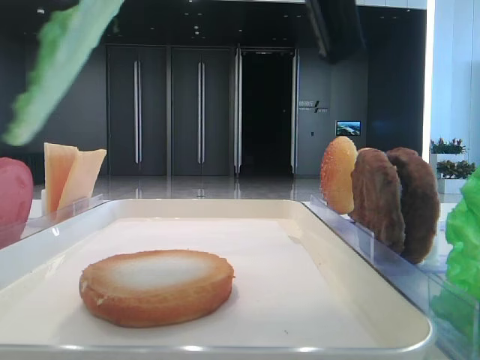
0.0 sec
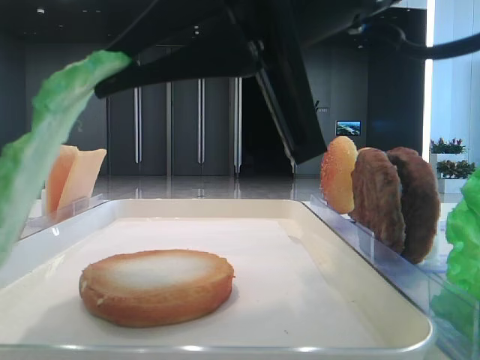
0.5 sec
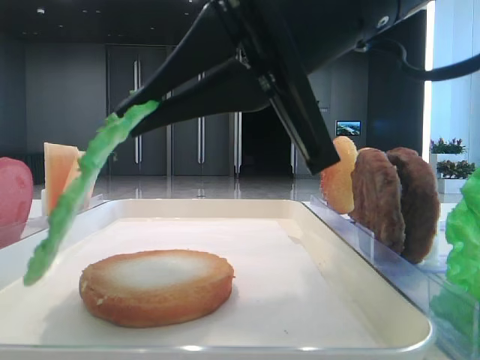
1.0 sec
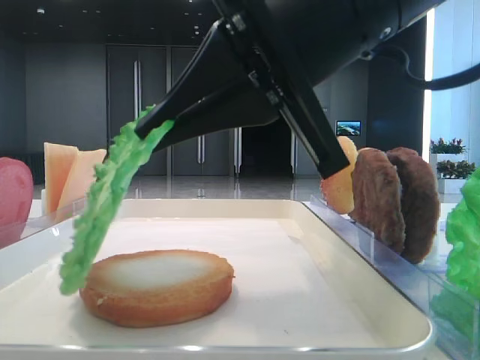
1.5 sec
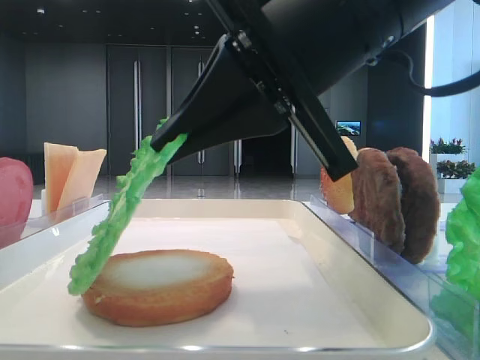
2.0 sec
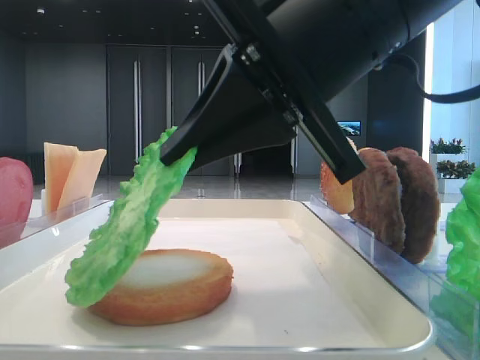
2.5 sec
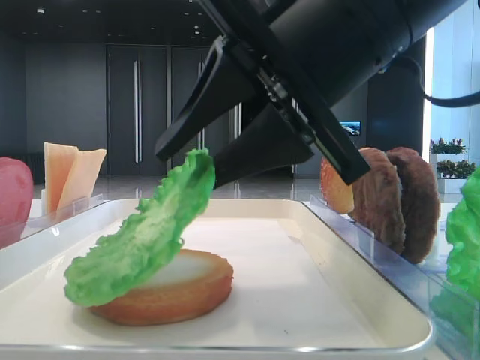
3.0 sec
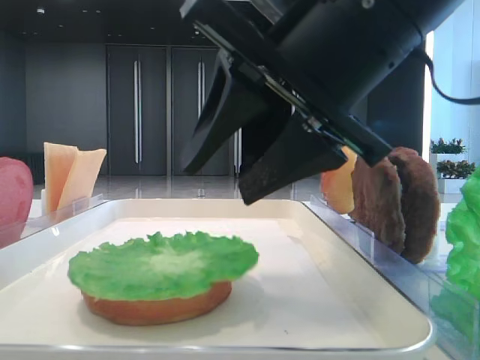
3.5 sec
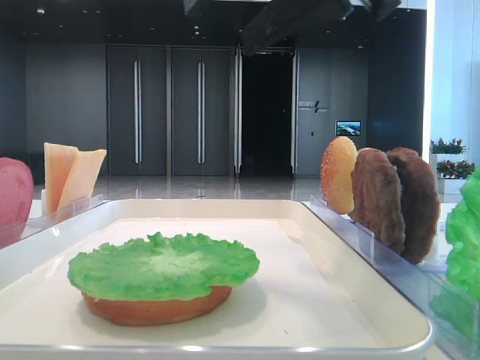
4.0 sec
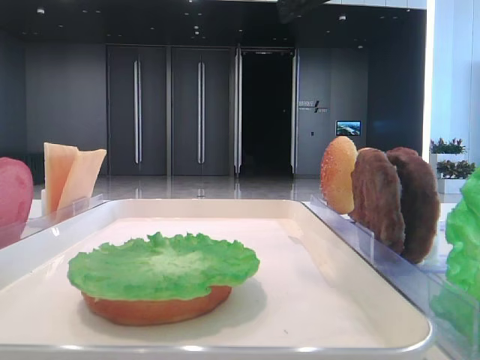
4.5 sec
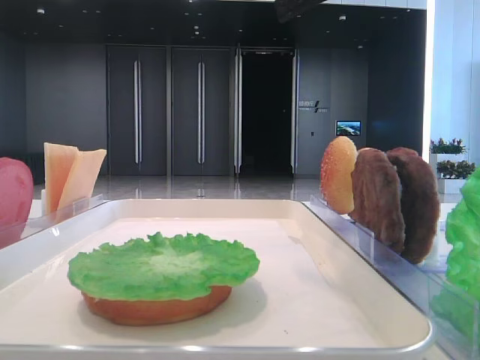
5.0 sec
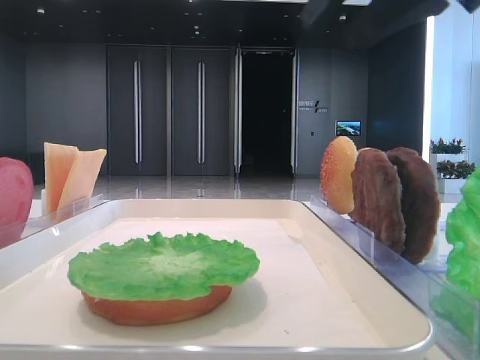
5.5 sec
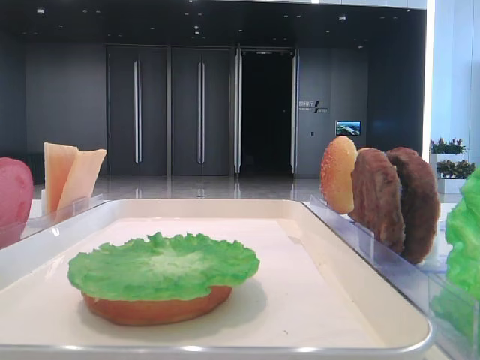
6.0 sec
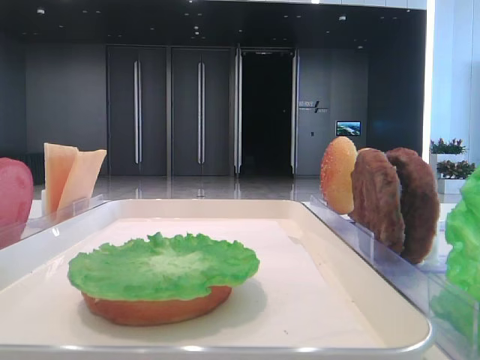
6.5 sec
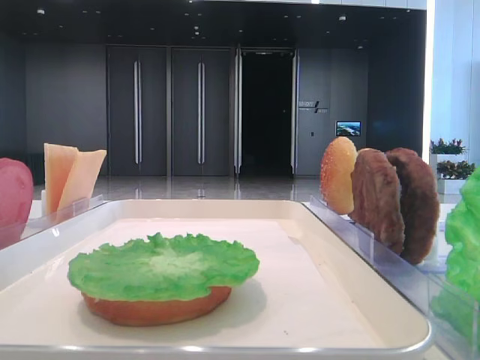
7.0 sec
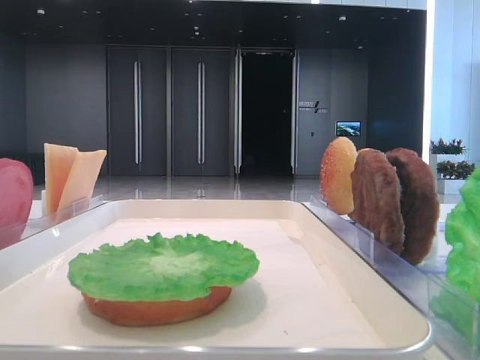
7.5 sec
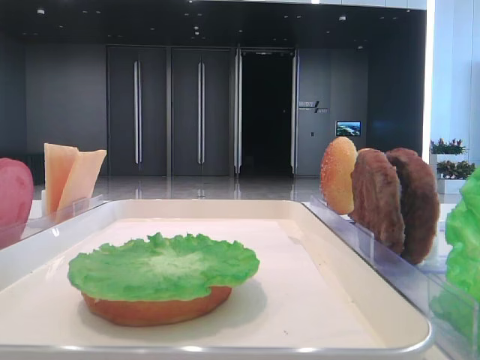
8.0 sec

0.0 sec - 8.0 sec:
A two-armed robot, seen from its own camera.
Step, 0.0 sec - 3.0 sec: Place the lettuce leaf on the bottom bread with the right hand.
0.0 sec - 2.0 sec: The right gripper travels downward by approximately 5 cm.
2.0 sec - 4.0 sec: The right gripper goes about 5 cm upward, and opens its fingers.
4.0 sec - 6.0 sec: The right gripper goes roughly 20 cm to the right.

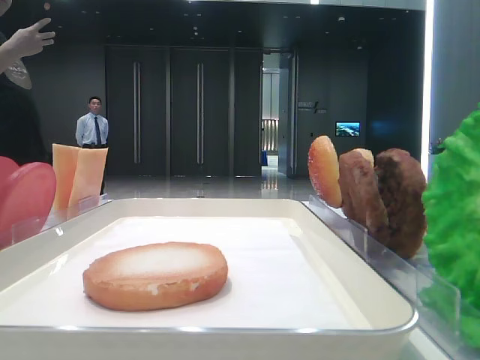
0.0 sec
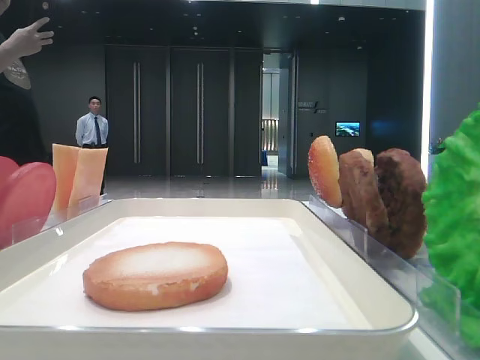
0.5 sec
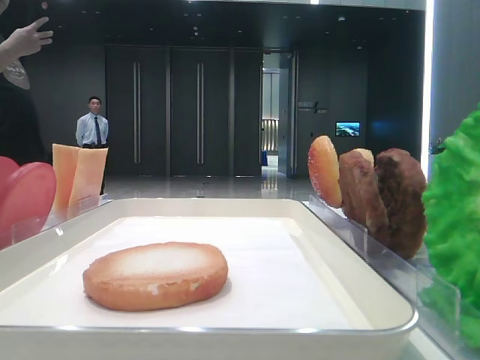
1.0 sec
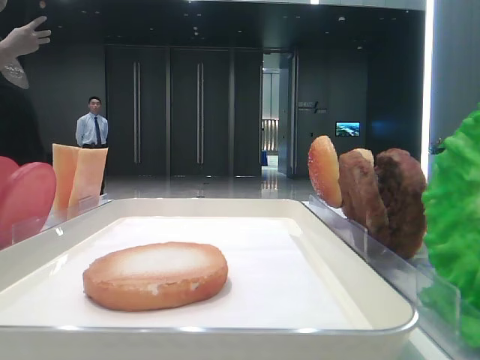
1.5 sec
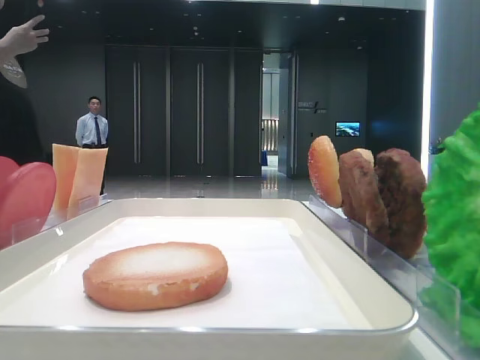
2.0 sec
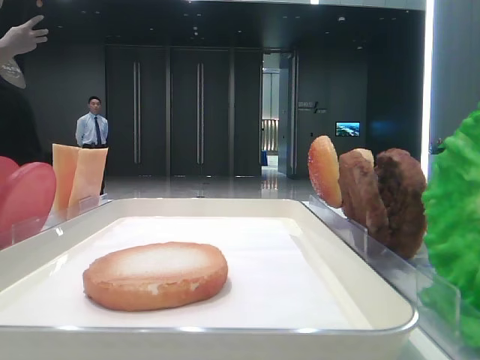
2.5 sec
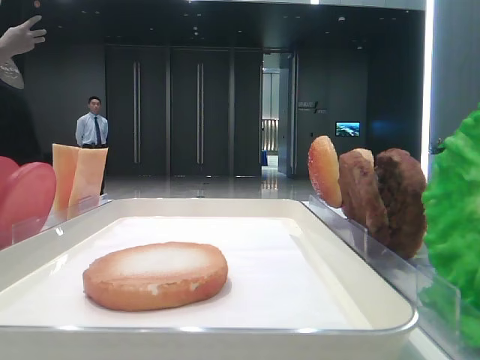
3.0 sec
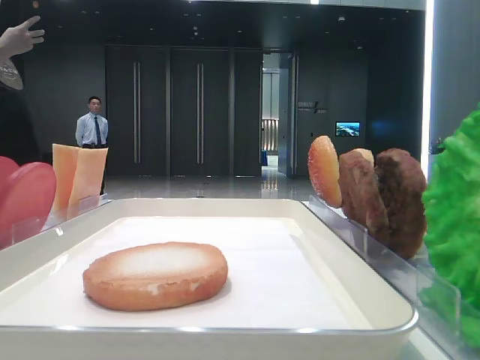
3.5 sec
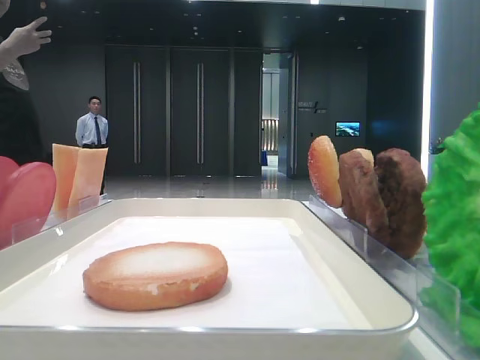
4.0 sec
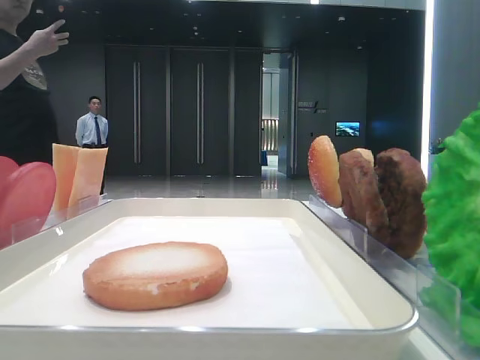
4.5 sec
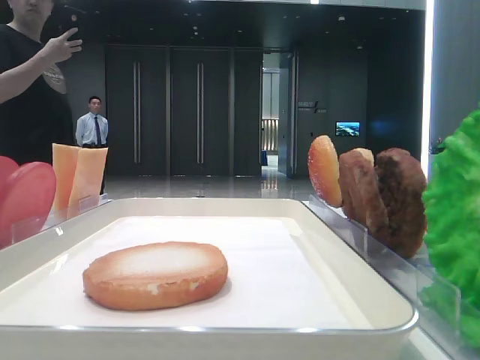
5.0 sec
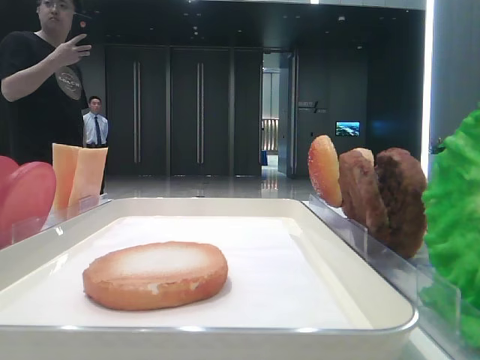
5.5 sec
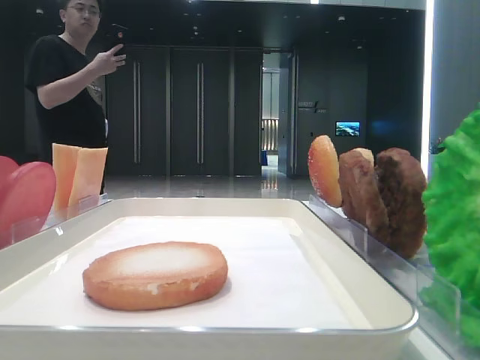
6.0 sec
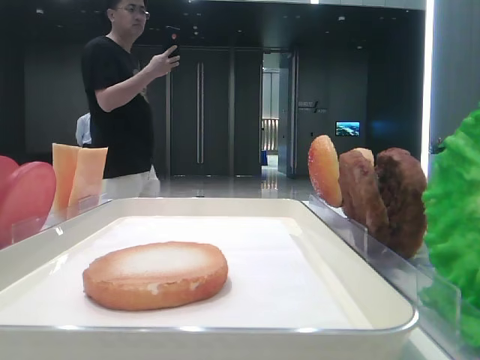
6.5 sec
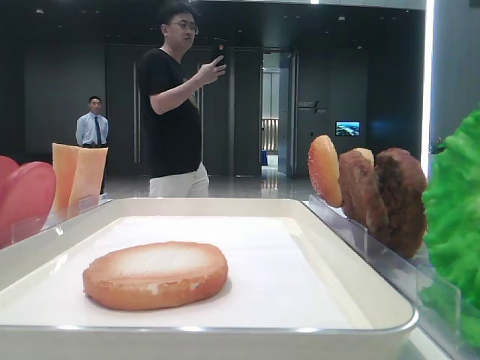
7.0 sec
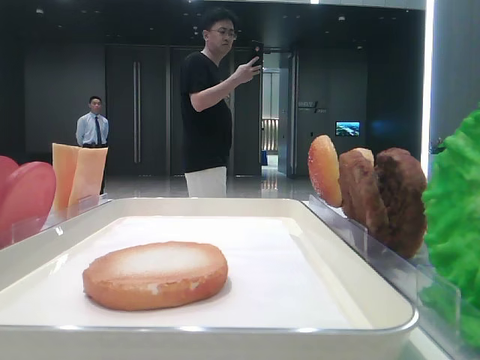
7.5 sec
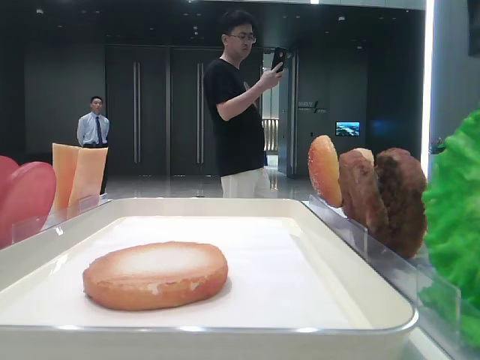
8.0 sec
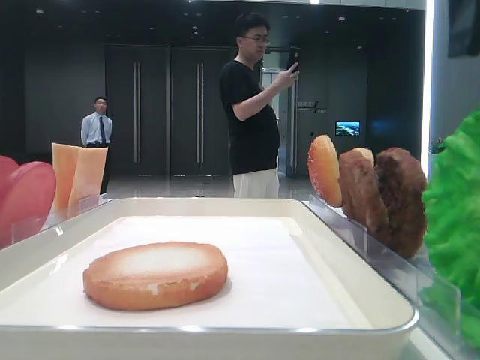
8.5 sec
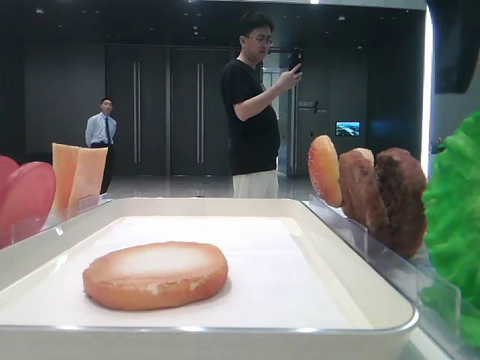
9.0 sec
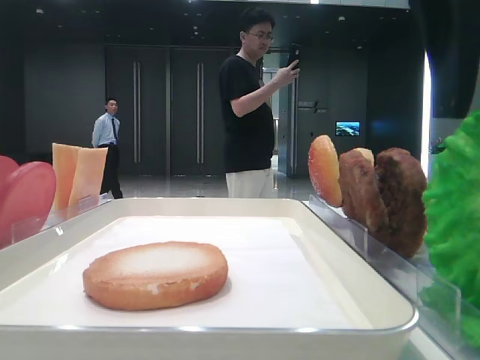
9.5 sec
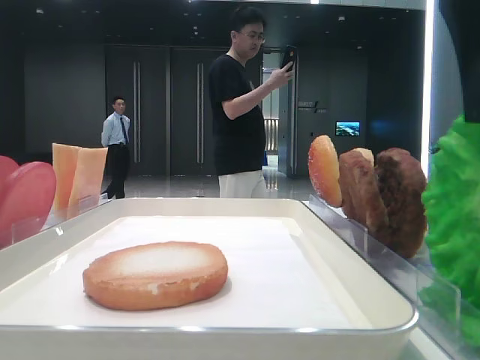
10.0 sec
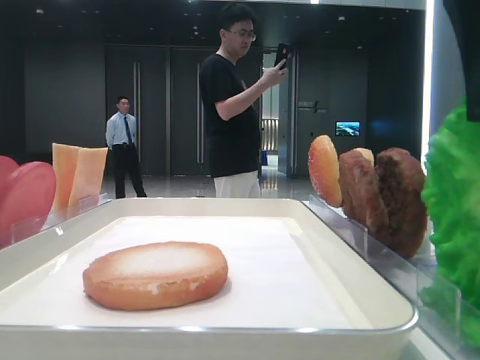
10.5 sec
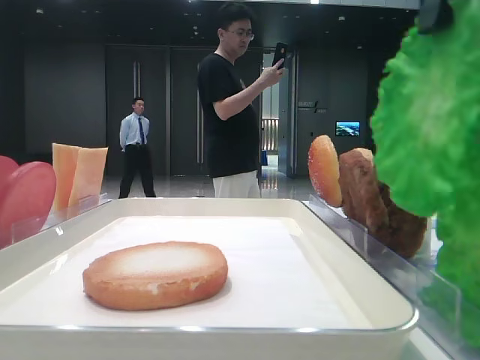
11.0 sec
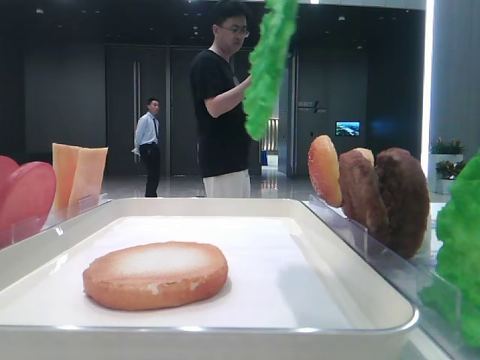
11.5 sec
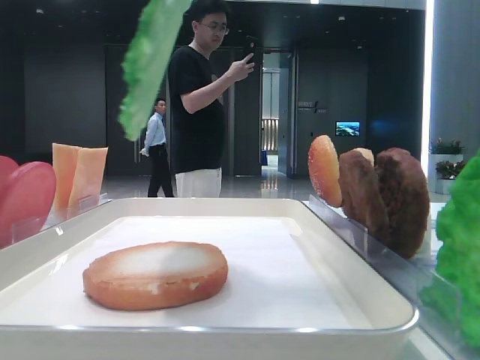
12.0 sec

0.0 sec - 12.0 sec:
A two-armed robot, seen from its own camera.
Step, 0.0 sec - 10.0 sec: Grab the lettuce leaf with the right hand.
6.0 sec - 8.0 sec: The right gripper heads to the left and downward, covering approximately 15 cm.
8.0 sec - 10.0 sec: The right gripper closes up.
10.0 sec - 12.0 sec: The right gripper heads to the left and upward, covering some 10 cm.

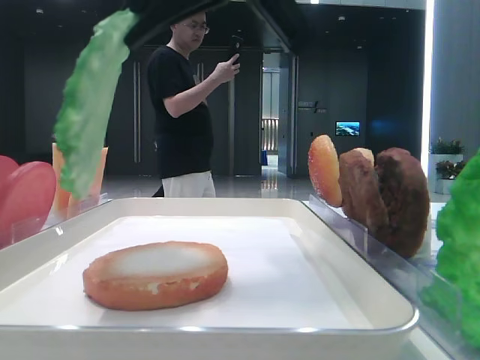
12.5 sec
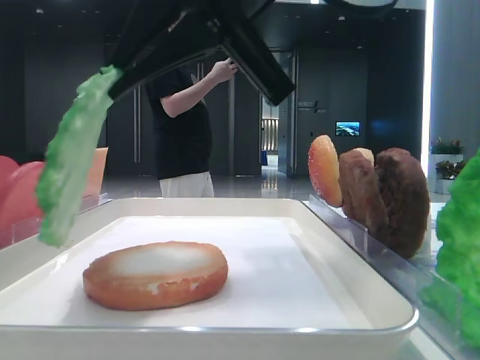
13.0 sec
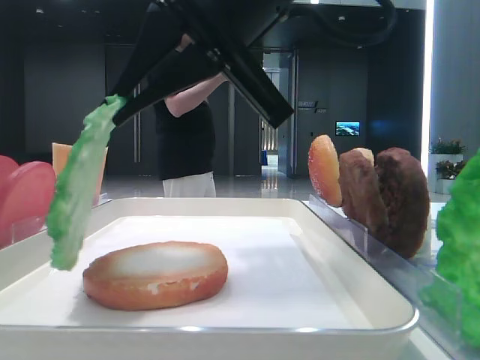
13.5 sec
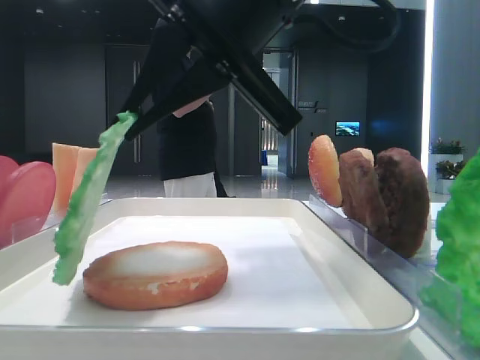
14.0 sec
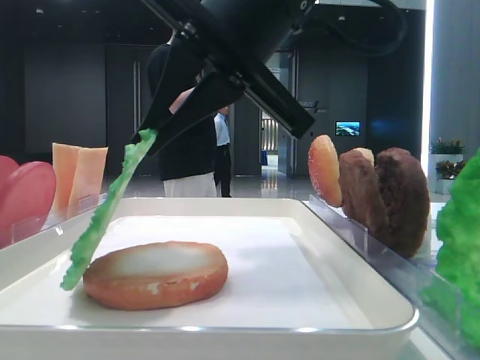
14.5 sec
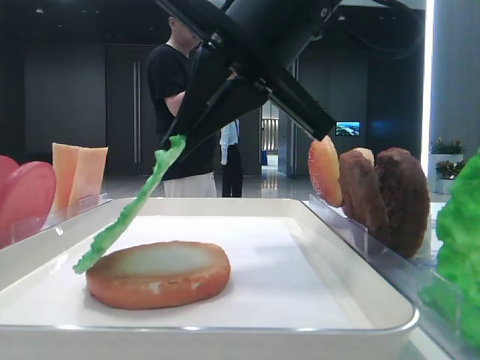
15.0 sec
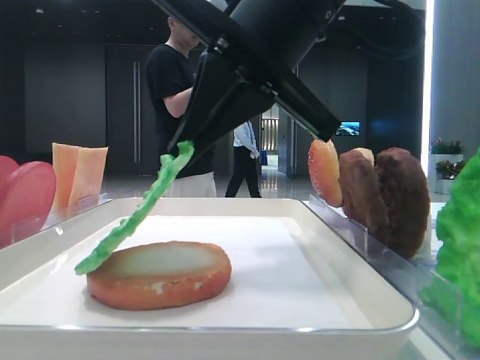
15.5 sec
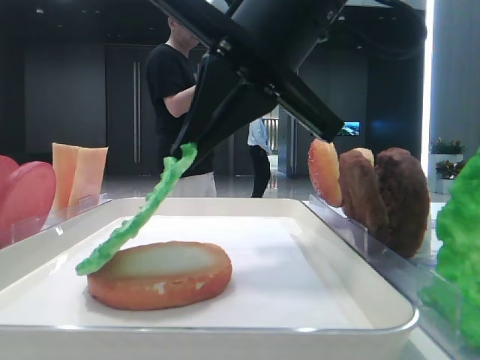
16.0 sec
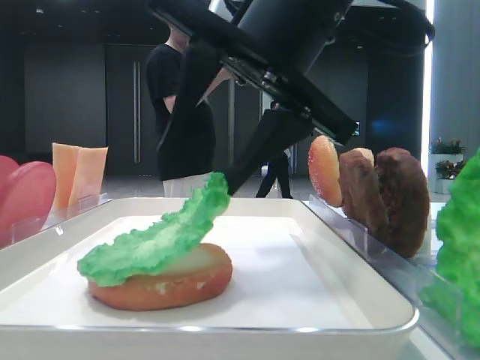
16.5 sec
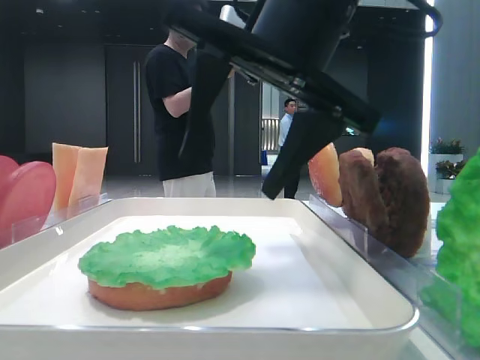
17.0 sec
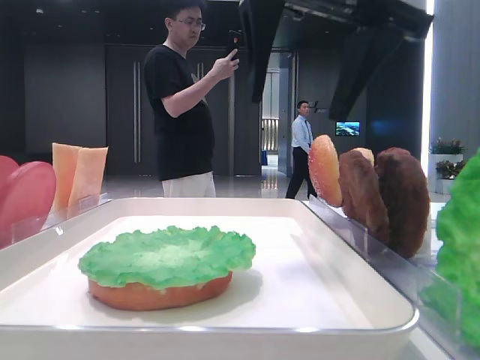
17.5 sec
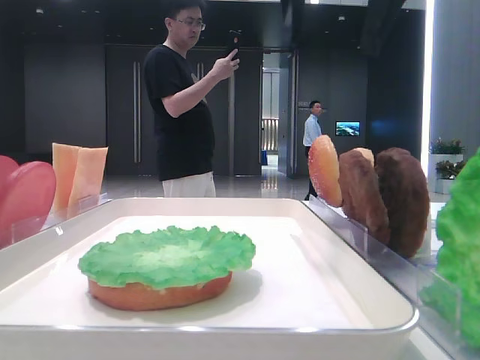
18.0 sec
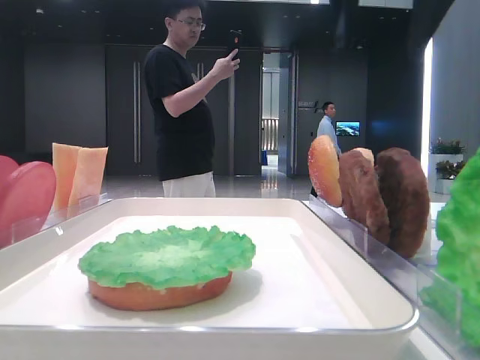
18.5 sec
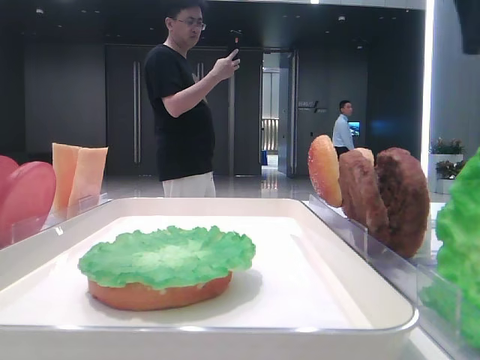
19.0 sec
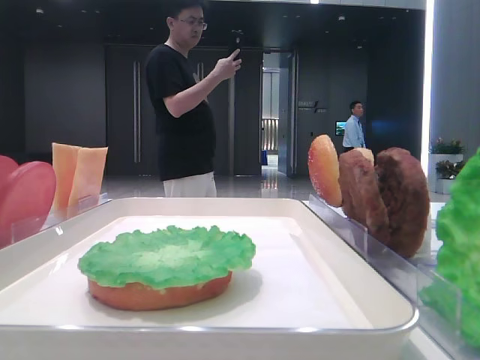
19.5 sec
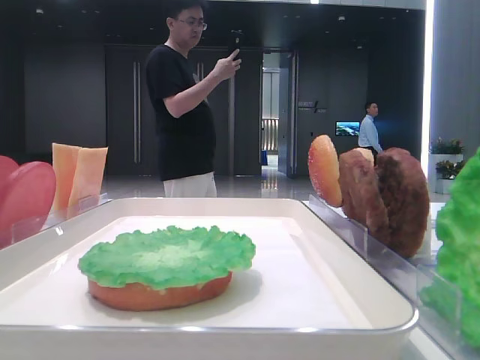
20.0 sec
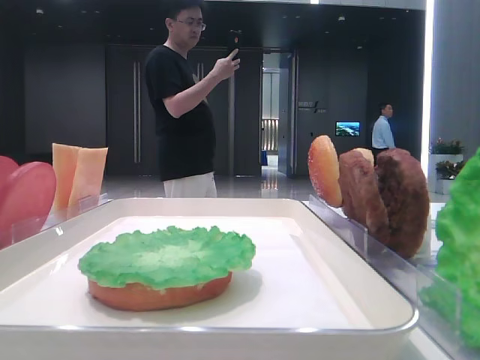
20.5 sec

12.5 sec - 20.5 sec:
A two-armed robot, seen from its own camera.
Step, 12.5 sec - 16.5 sec: Place the lettuce leaf on the bread slice with the right hand.
12.5 sec - 14.5 sec: The right gripper travels downward by approximately 5 cm.
14.5 sec - 16.5 sec: The right gripper opens up.
16.5 sec - 18.5 sec: The right gripper moves upward and to the right, approximately 15 cm.
18.5 sec - 20.5 sec: The right gripper heads to the right and backward, covering roughly 25 cm.
